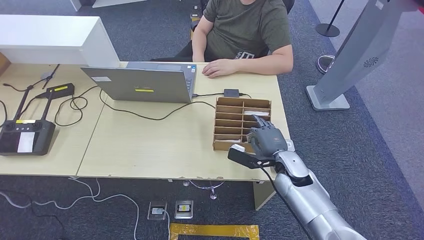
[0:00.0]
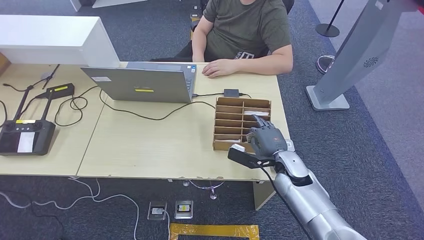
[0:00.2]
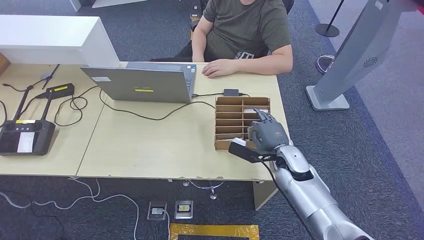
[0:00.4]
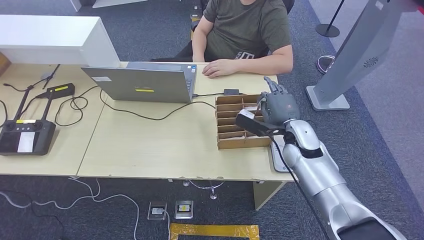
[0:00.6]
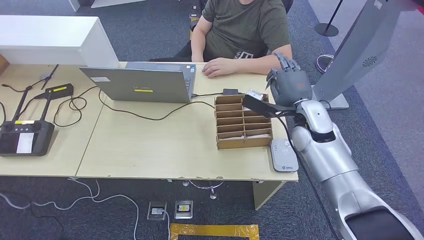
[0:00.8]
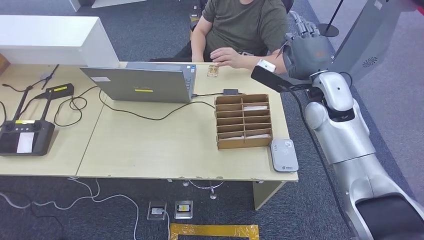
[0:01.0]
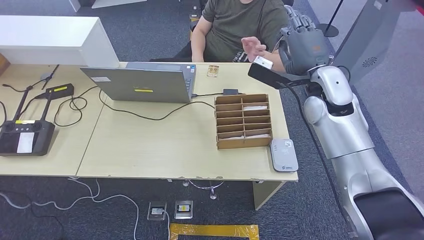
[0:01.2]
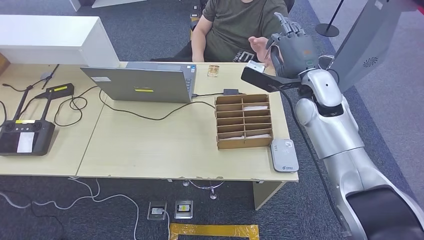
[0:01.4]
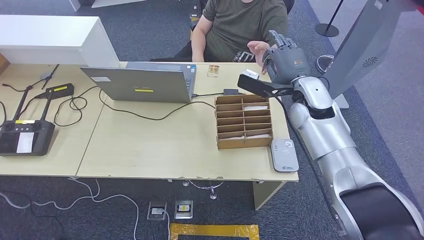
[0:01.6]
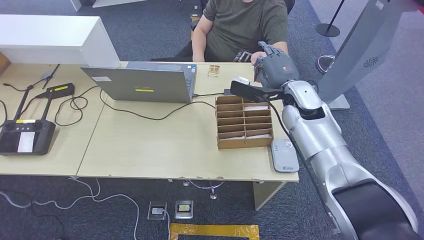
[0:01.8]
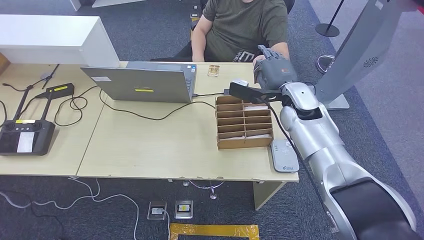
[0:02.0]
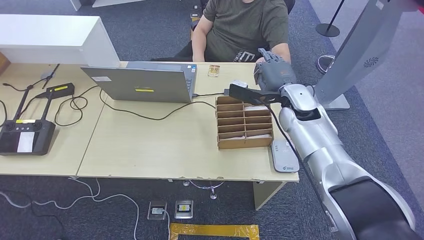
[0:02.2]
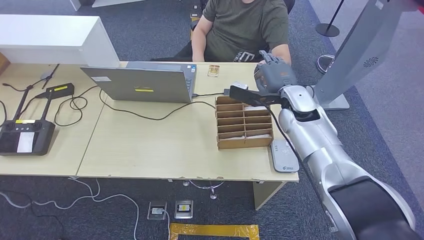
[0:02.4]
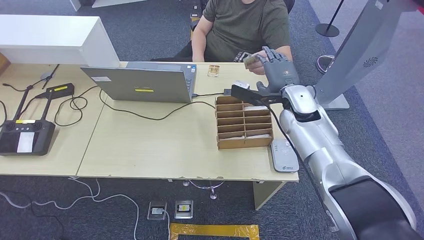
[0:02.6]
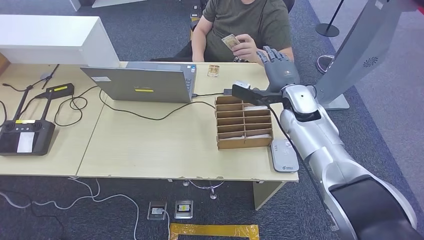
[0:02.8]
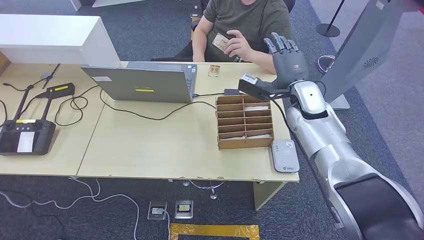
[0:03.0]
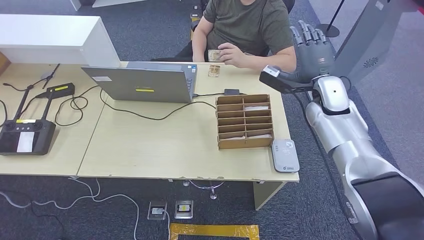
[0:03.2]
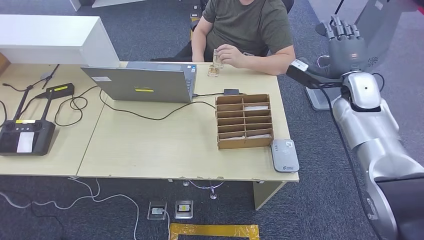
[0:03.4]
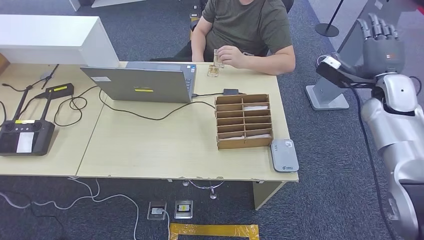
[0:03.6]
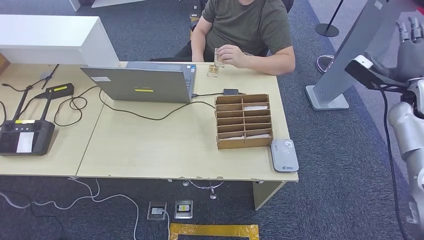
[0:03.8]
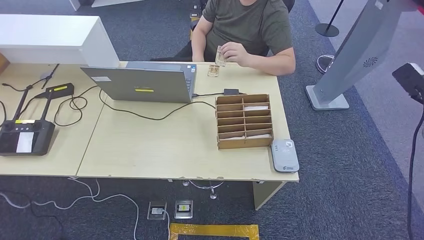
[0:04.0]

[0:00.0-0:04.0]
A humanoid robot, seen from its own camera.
Step, 0:00.8 to 0:04.0: Hand the room key to the person.
0:00.0 to 0:01.4: The right hand goes about 25 cm upward and forward.
0:01.4 to 0:02.6: The right hand heads downward, covering some 5 cm.
0:02.6 to 0:04.0: The right hand is displaced to the right by roughly 35 cm.
